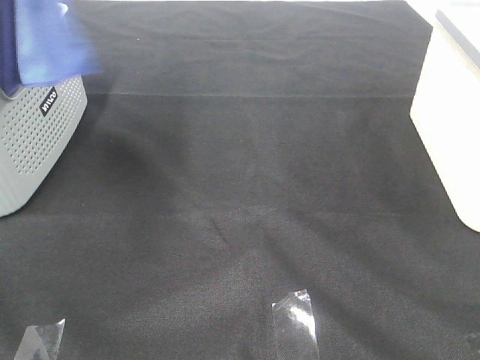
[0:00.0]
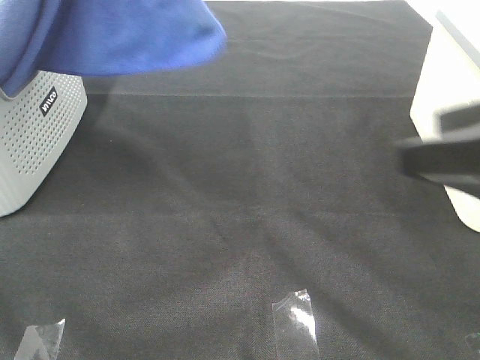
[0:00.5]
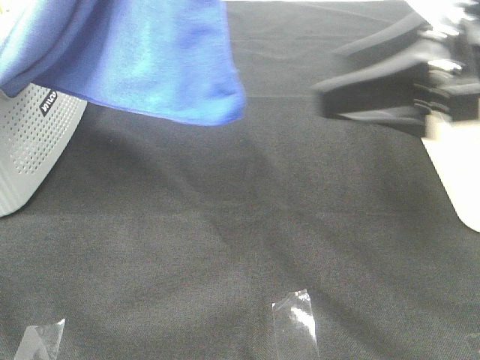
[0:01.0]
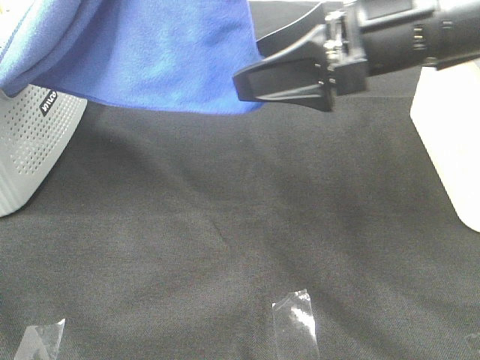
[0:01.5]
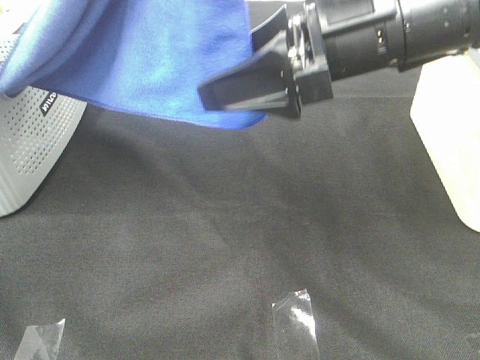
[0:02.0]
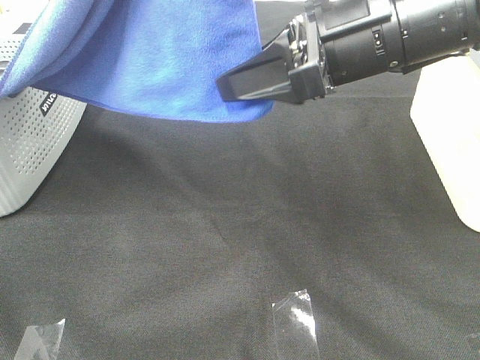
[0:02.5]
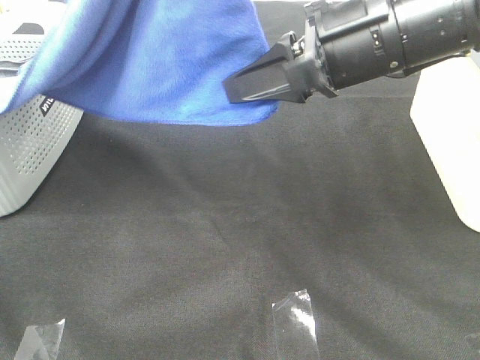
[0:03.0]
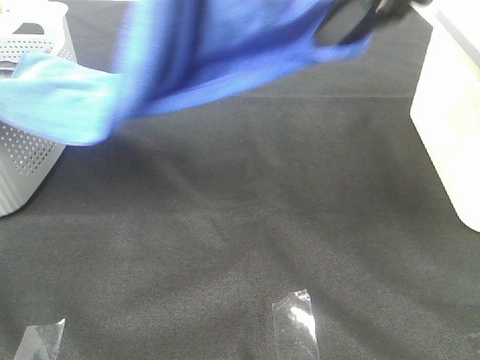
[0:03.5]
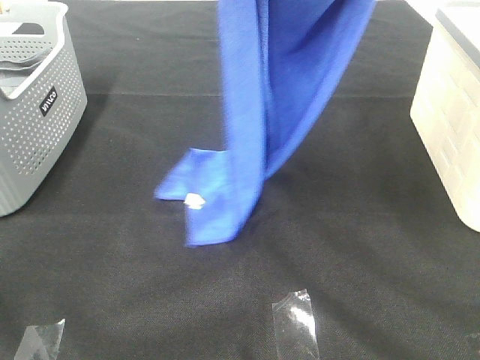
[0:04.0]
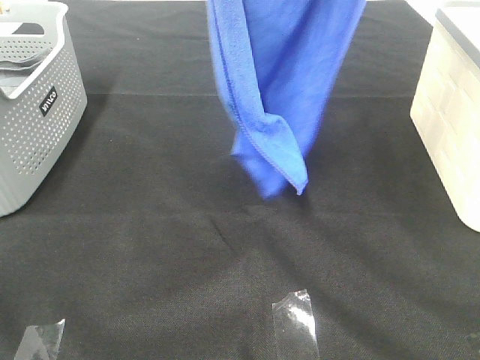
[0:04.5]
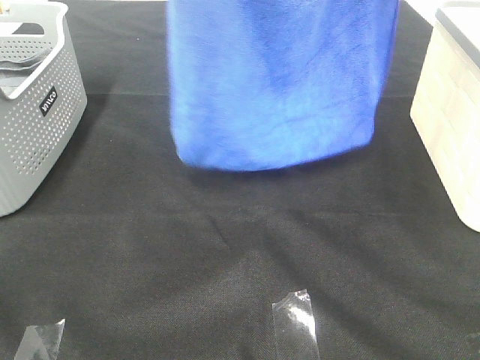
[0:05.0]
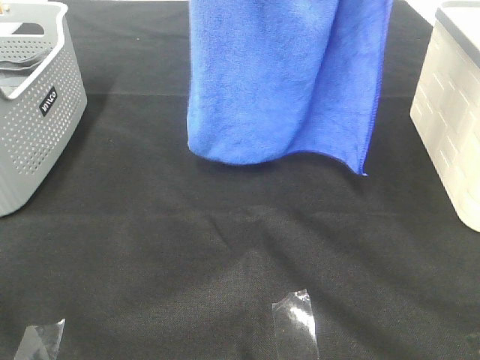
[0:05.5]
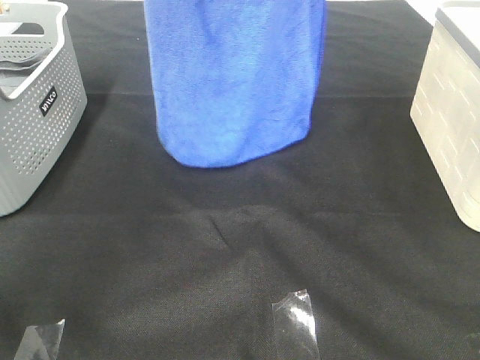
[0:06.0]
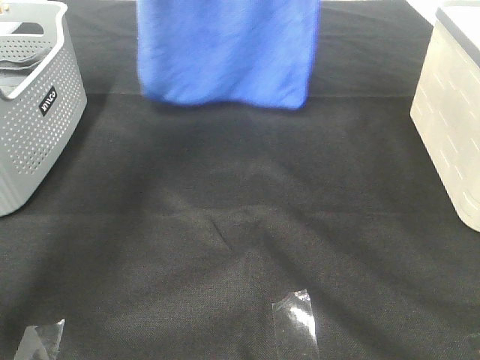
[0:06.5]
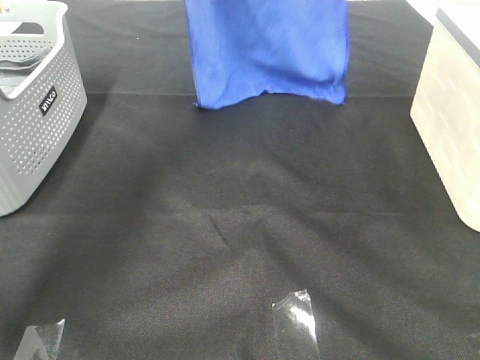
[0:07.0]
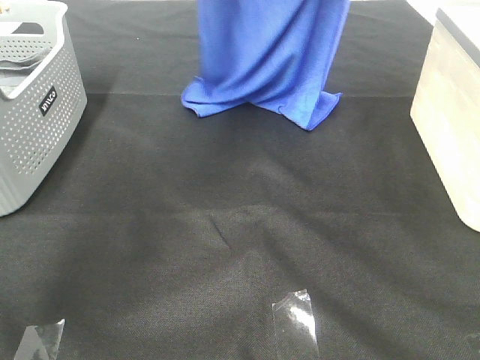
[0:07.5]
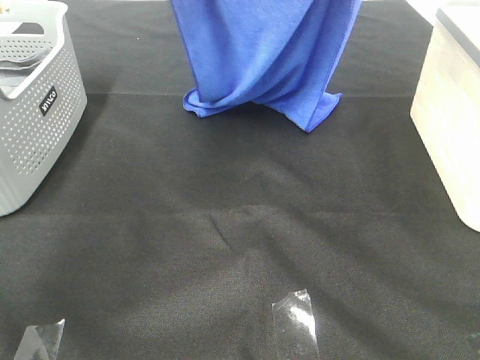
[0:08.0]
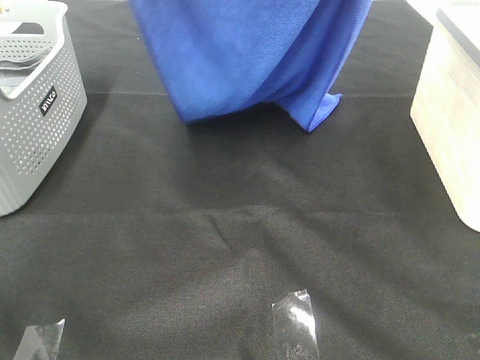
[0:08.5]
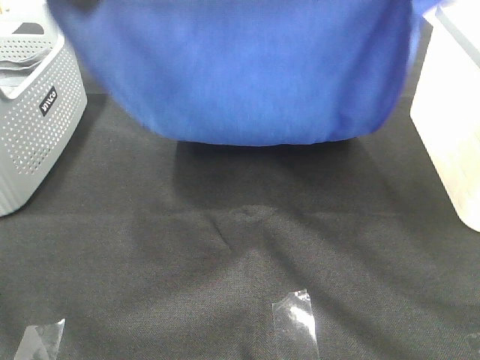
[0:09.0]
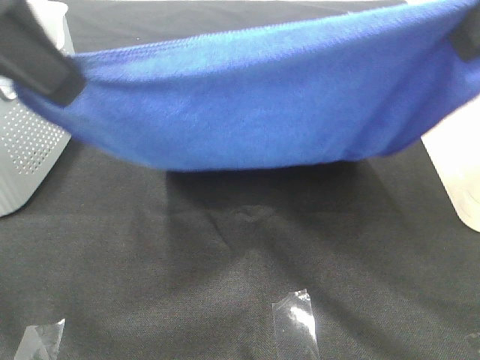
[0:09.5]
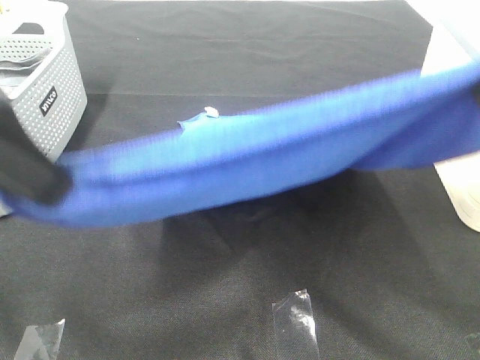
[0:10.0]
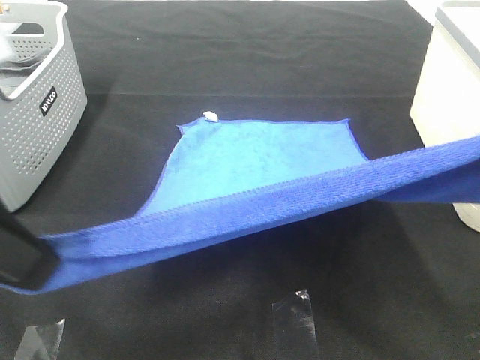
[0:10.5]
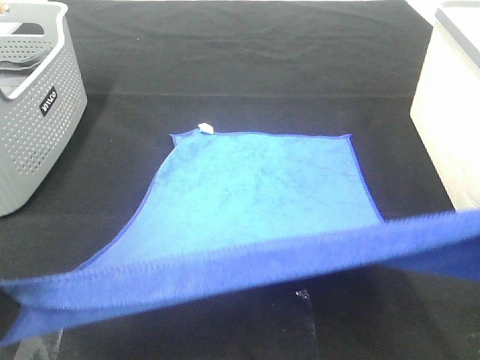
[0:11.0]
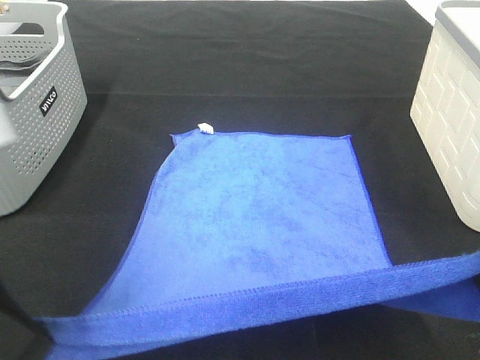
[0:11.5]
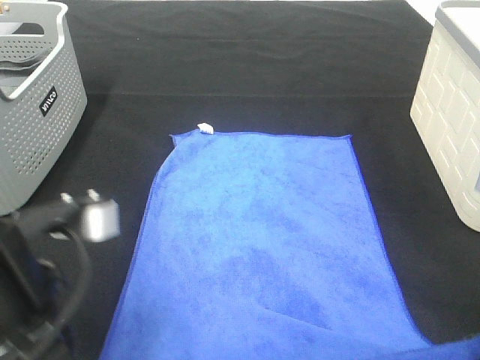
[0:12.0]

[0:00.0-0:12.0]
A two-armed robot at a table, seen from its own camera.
Task of the whole recording: Remove the towel and place it.
Step, 0.0 to 3.0 s: Right hand: grab a corner of the blue towel and straighten it.
Step, 3.5 to 9.5 s: Left hand: spread the blue towel flat on the table.
Step, 3.5 to 9.5 s: Right hand: spread the blue towel flat on the table.
0.0 to 2.0 s: The right gripper shifts approximately 30 cm forward and to the left; the left gripper is displaced to the right and backward by approximately 15 cm.
2.0 to 4.0 s: The left gripper moves forward, about 5 cm. The right gripper moves upward, roughly 15 cm, and closes up.
4.0 to 6.0 s: The right gripper moves forward, some 10 cm. The left gripper travels forward and to the left by some 15 cm.
6.0 to 8.0 s: The left gripper travels forward and back again, approximately 10 cm each way. Meanwhile the right gripper moves some 10 cm forward and comes back.
8.0 to 10.0 s: Both grippers move backward, about 25 cm.
10.0 to 12.0 s: The two grippers go approximately 15 cm downward.

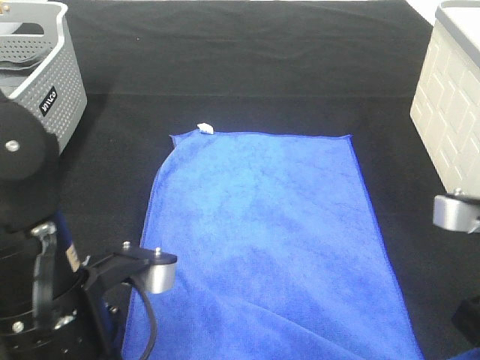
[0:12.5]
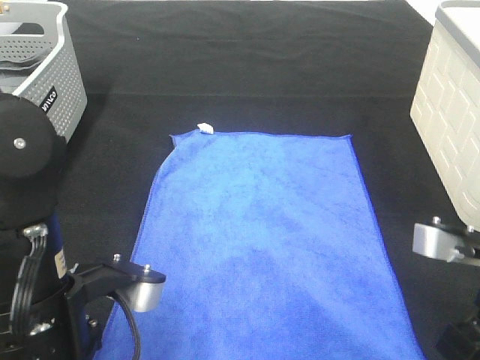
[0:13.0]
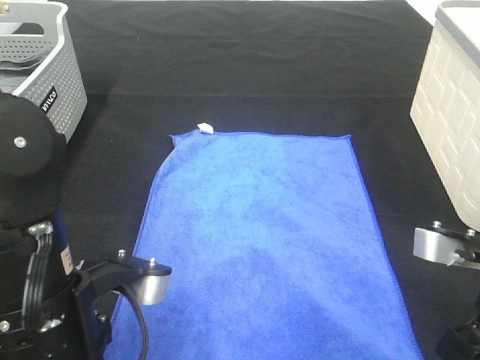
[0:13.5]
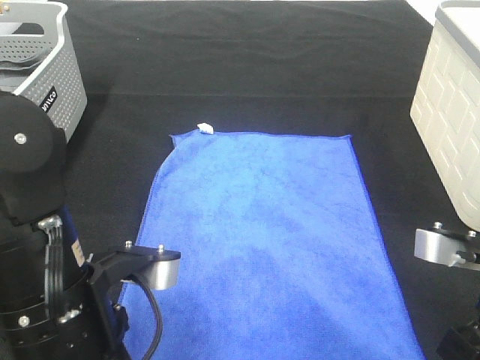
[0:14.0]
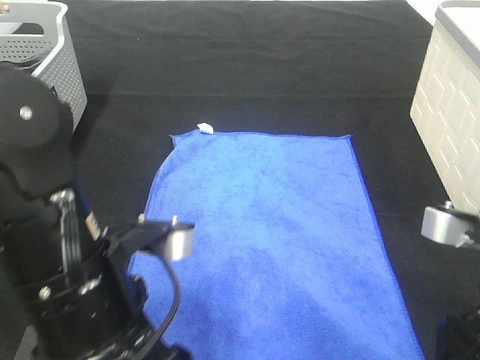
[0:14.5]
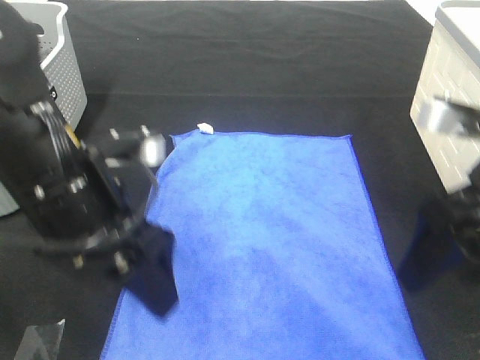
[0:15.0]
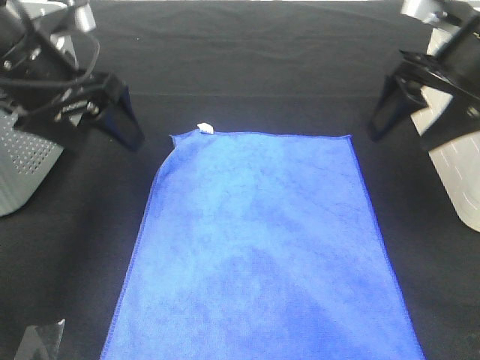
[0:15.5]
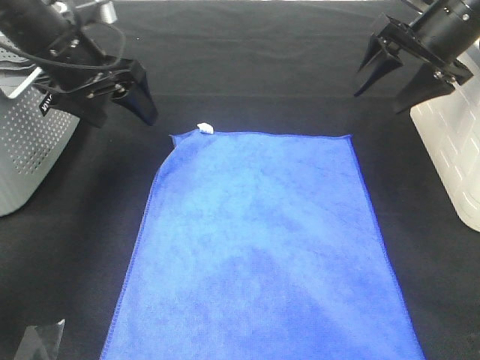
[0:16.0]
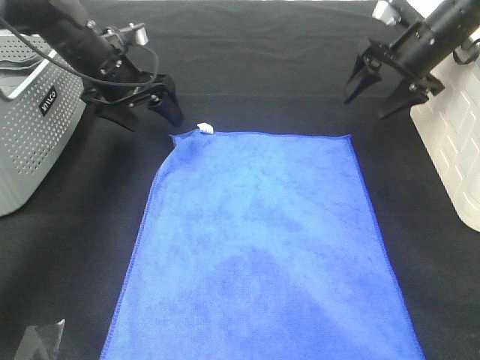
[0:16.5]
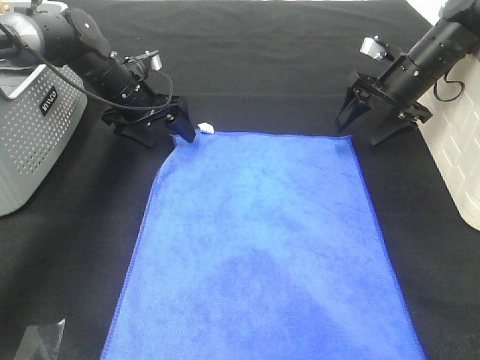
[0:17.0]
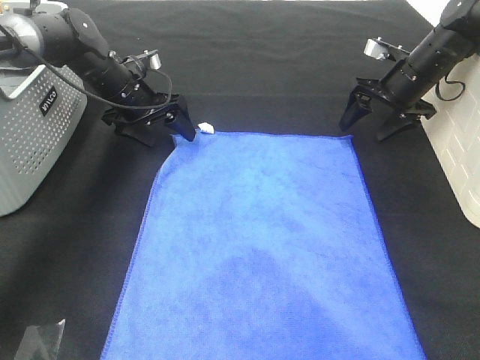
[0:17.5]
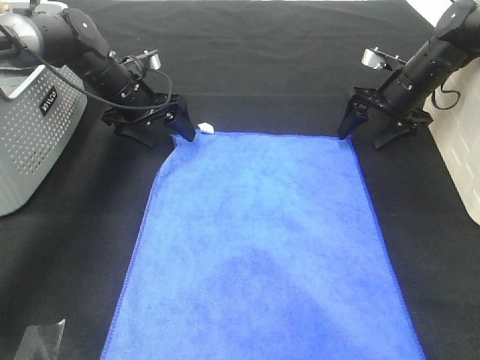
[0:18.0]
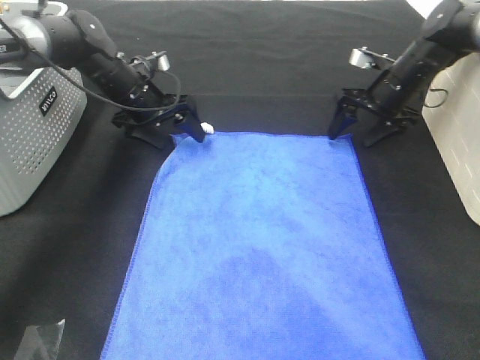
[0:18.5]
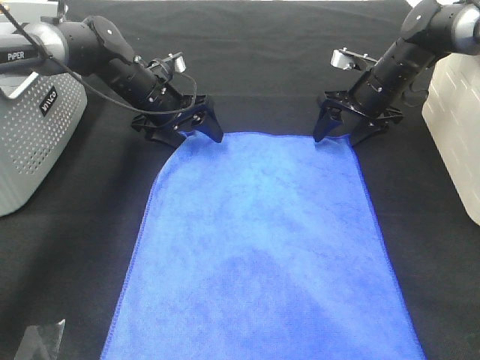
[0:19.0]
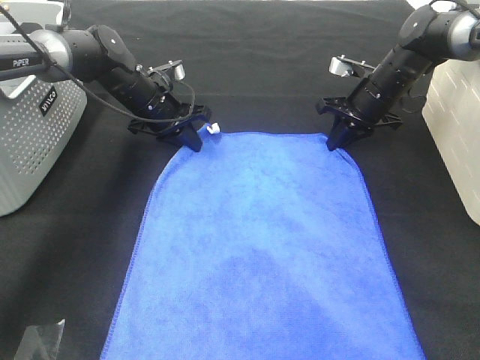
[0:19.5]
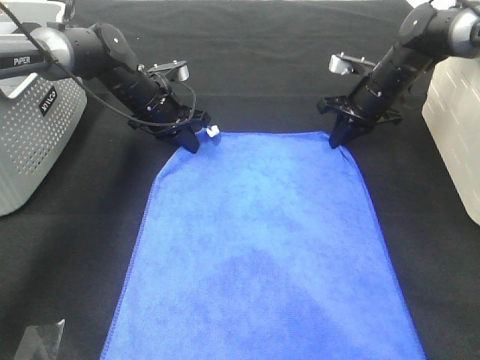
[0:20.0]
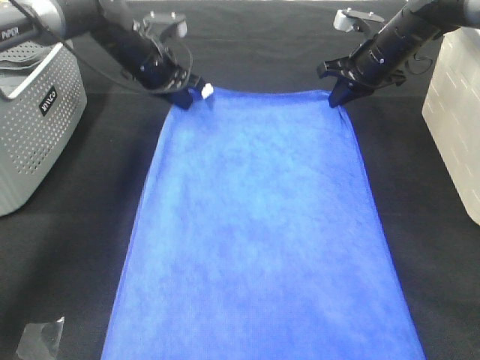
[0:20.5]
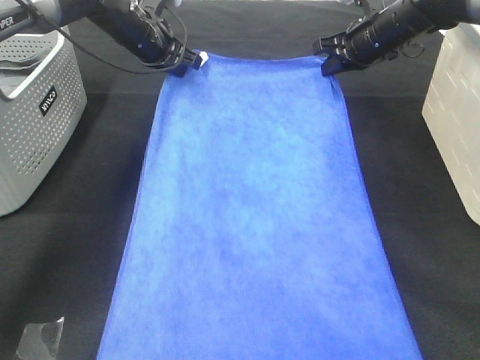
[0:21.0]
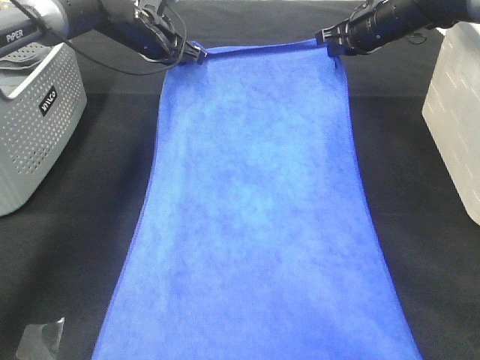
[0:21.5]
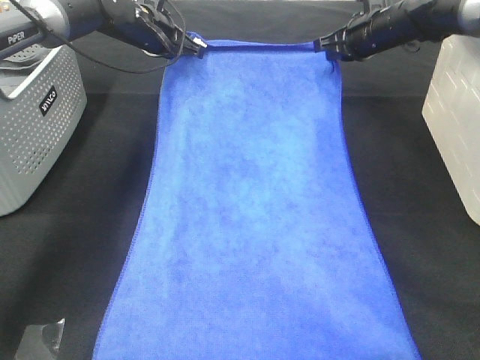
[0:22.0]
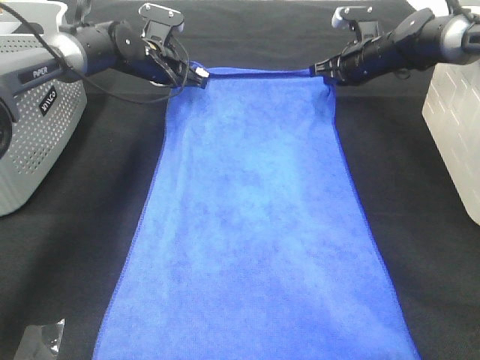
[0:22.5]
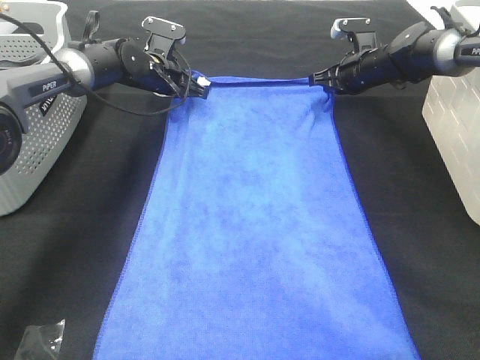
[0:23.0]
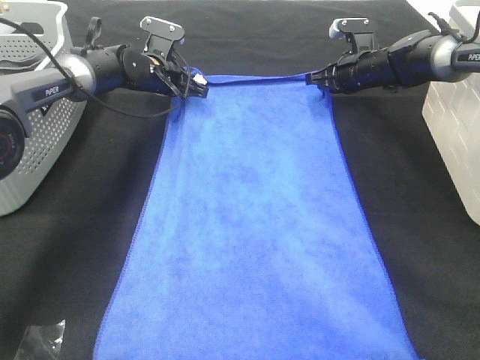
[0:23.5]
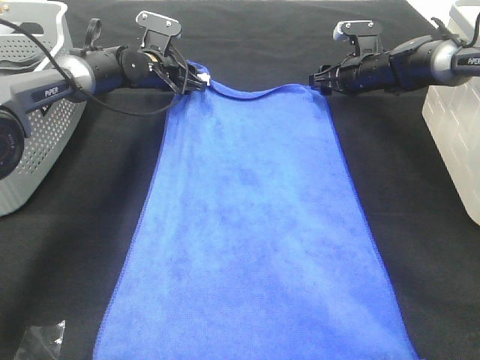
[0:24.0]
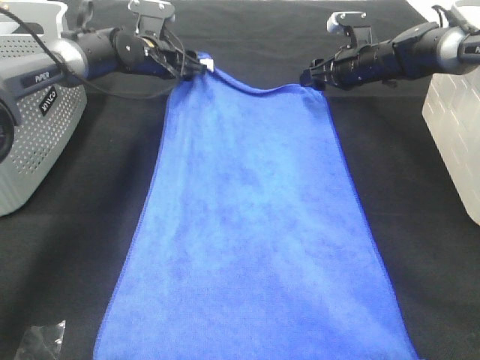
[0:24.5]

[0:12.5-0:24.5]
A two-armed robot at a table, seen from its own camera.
Task of the whole recording: Remove the towel and place it.
Step, 12.5 to 23.0 s: Right hand:adjust the blue towel.
12.5 to 14.5 s: The left gripper opens up. The right gripper opens up.
14.5 to 16.5 s: The grippers both shift forward by roughly 35 cm.
16.5 to 18.5 s: Both grippers move downward, about 5 cm.
18.5 to 20.5 s: Both grippers move upward, roughly 5 cm. The left gripper closes its fingers. The right gripper closes.
20.5 to 22.5 s: The left gripper shifts by approximately 5 cm. Meanwhile the right gripper shifts by some 5 cm.
22.5 to 24.5 s: The right gripper opens up. Meanwhile the left gripper opens.

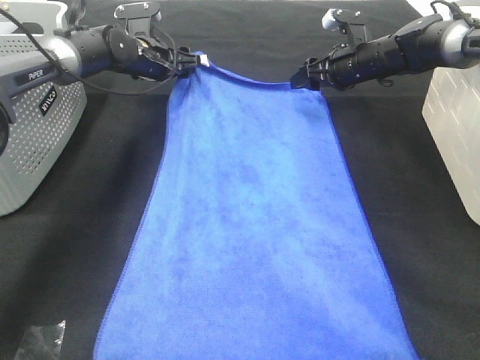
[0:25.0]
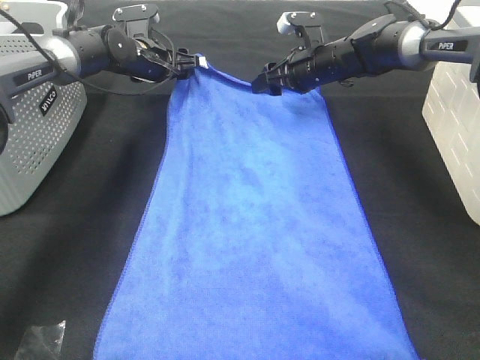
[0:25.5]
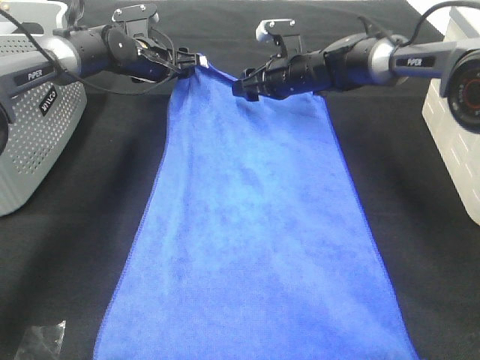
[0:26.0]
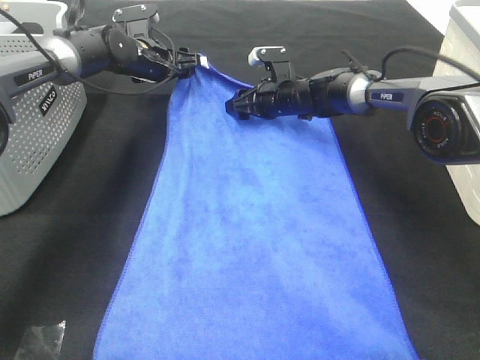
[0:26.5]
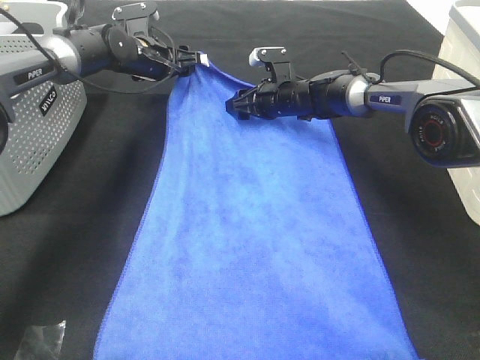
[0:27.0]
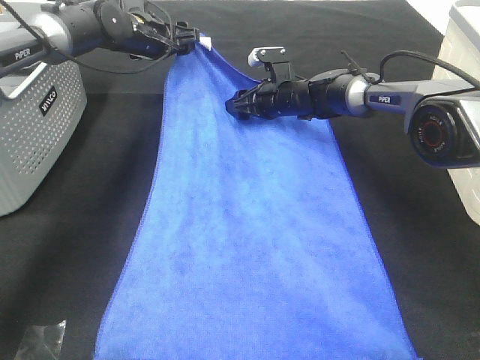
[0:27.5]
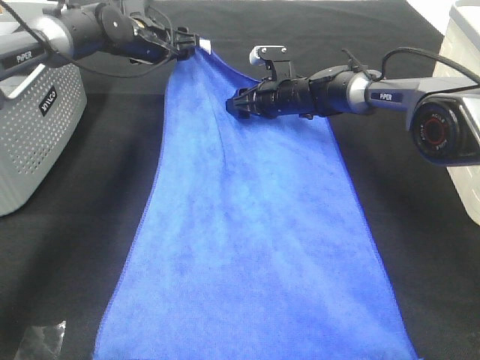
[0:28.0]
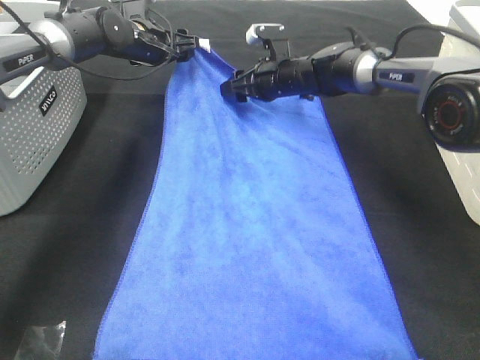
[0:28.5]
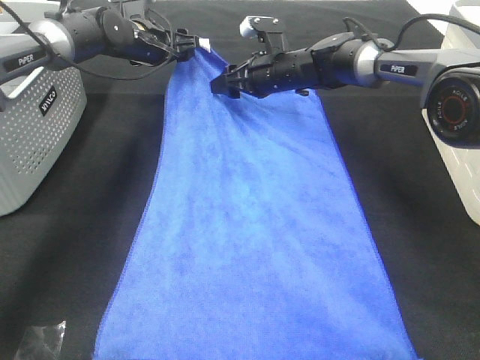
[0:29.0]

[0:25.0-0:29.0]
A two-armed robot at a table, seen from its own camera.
Task of the whole recording: Remove the towel and place it.
25.0 to 27.0 s: The right gripper moves to the left and downward, roughly 15 cm.
27.0 to 29.0 s: The right gripper goes approximately 5 cm upward.
